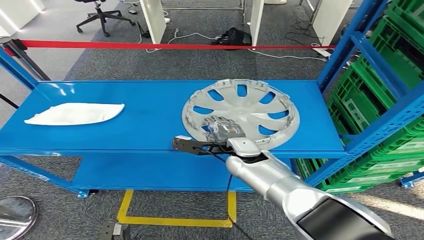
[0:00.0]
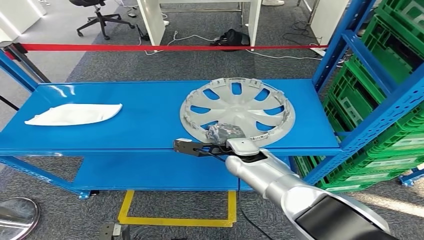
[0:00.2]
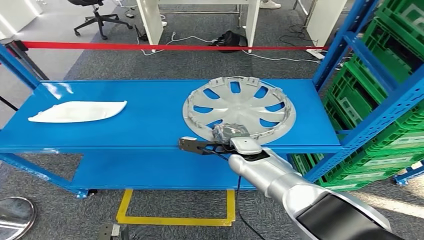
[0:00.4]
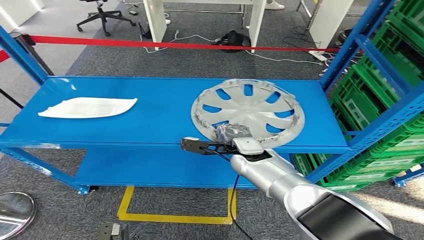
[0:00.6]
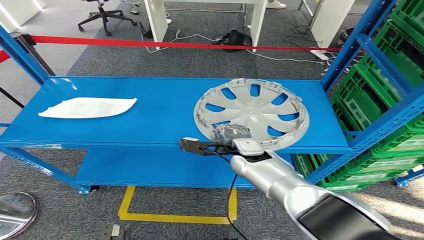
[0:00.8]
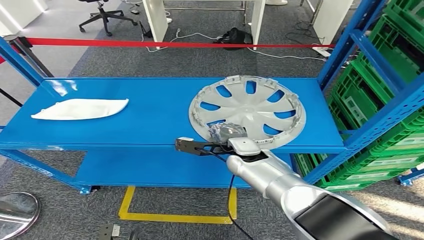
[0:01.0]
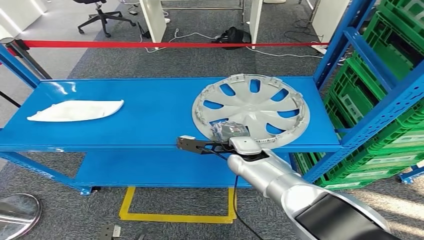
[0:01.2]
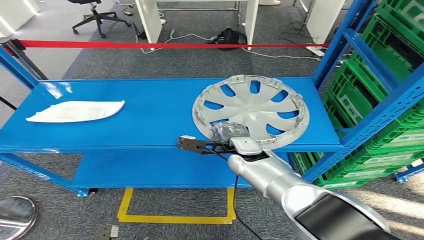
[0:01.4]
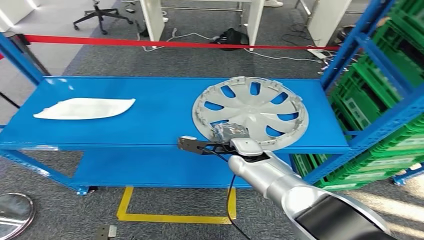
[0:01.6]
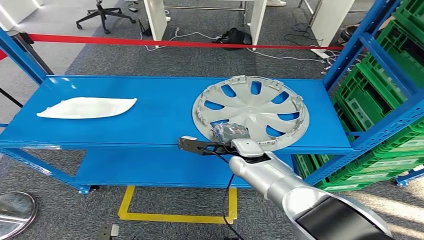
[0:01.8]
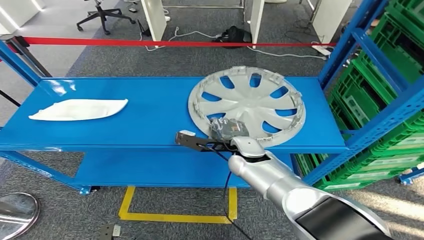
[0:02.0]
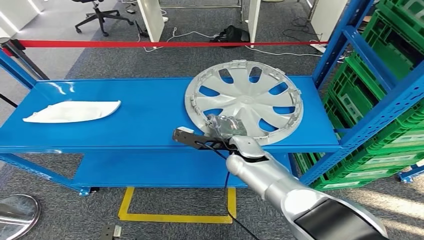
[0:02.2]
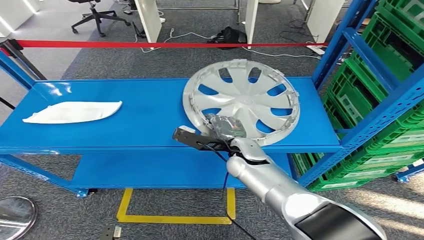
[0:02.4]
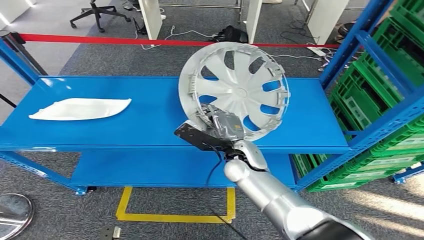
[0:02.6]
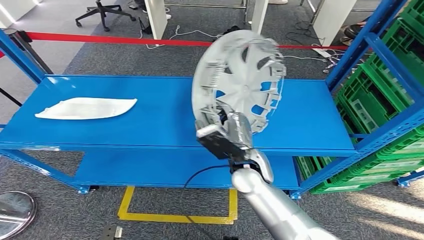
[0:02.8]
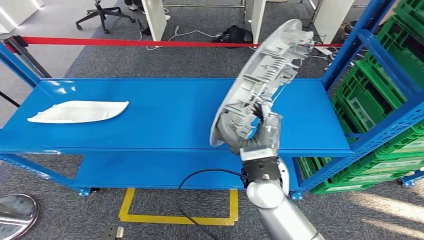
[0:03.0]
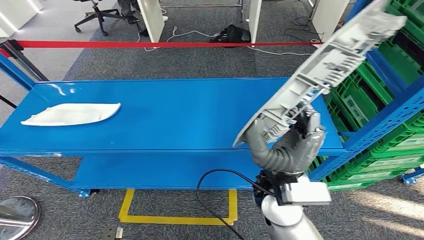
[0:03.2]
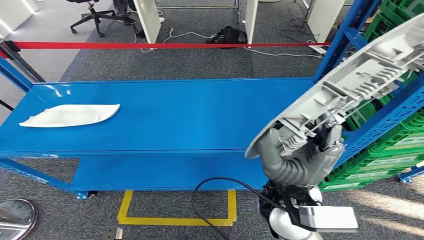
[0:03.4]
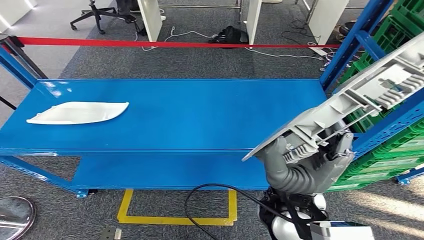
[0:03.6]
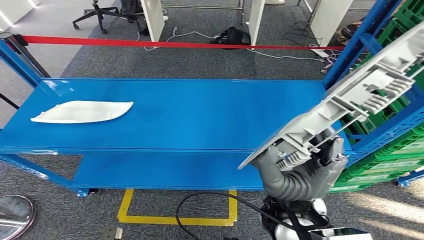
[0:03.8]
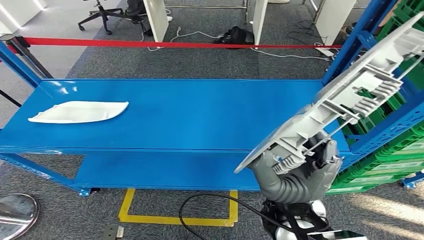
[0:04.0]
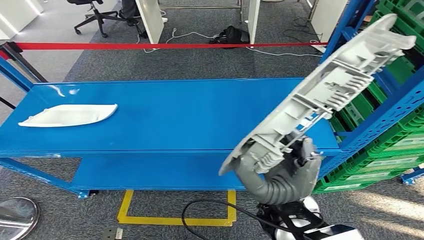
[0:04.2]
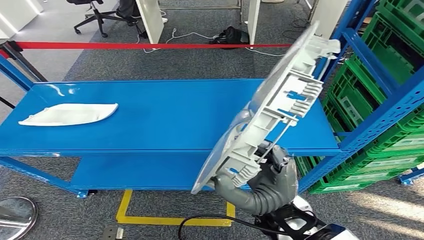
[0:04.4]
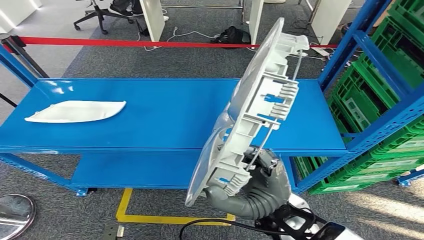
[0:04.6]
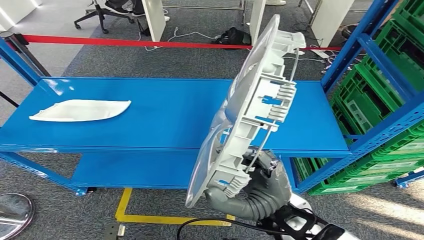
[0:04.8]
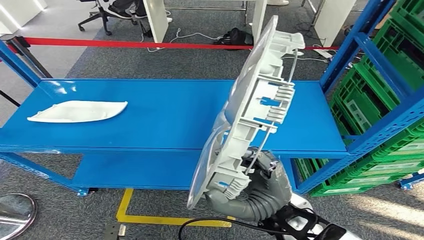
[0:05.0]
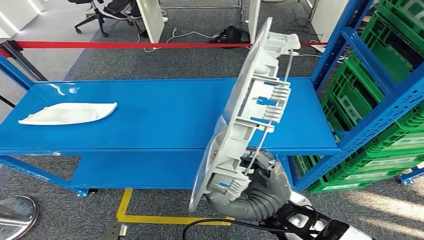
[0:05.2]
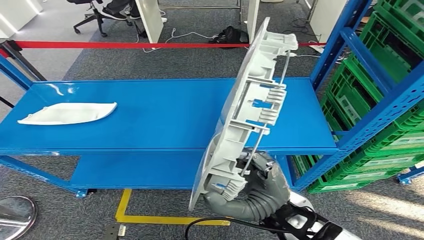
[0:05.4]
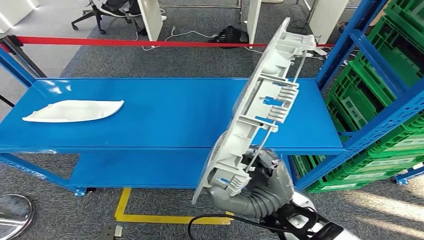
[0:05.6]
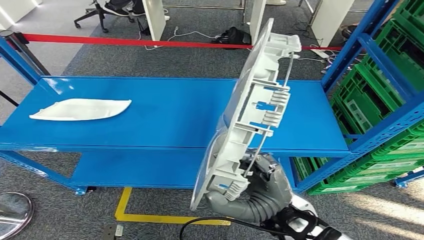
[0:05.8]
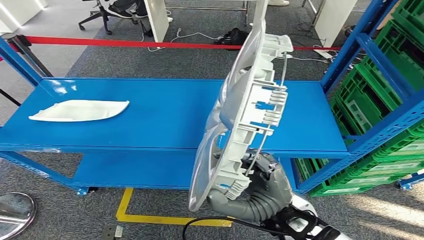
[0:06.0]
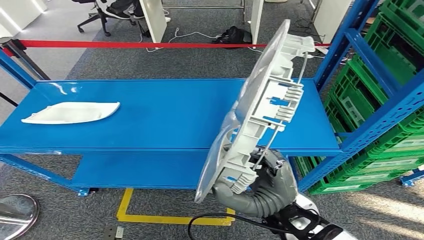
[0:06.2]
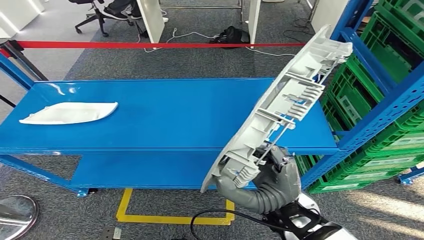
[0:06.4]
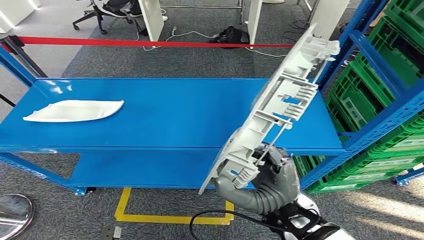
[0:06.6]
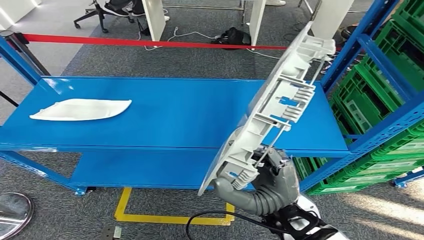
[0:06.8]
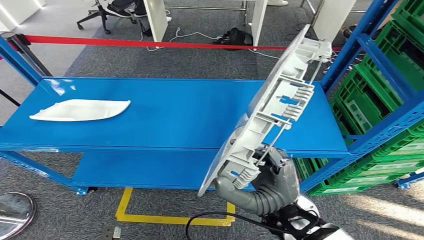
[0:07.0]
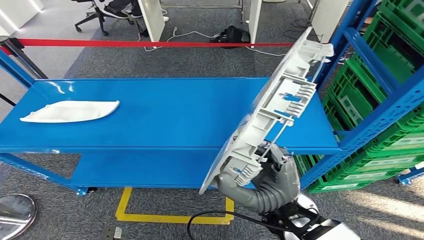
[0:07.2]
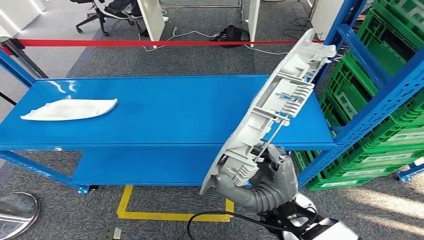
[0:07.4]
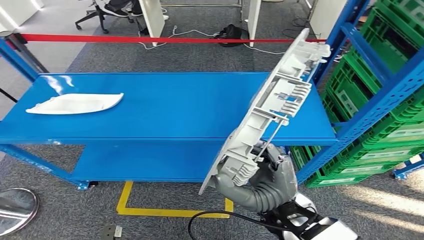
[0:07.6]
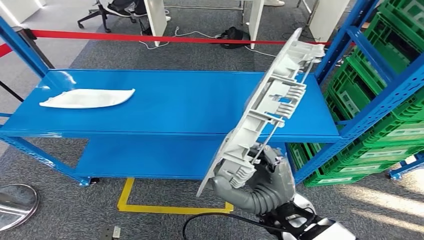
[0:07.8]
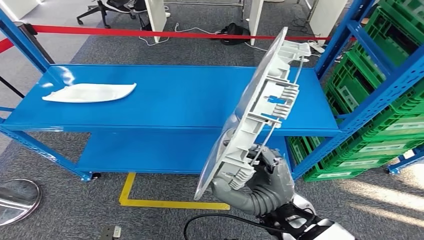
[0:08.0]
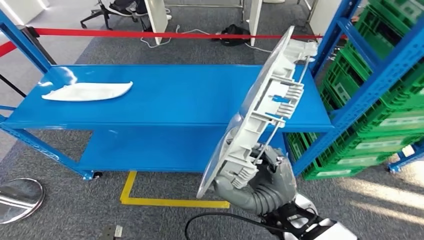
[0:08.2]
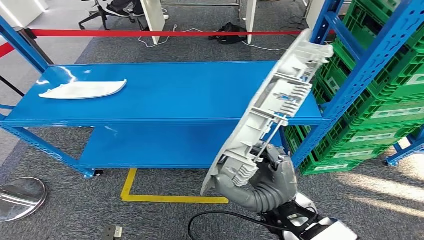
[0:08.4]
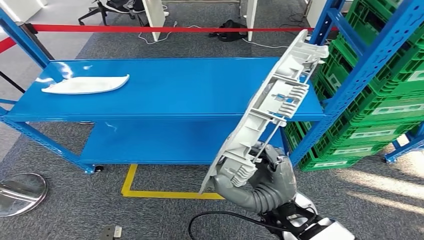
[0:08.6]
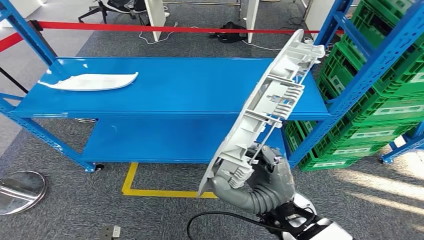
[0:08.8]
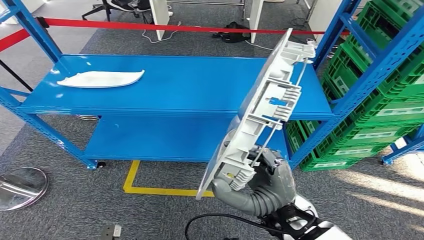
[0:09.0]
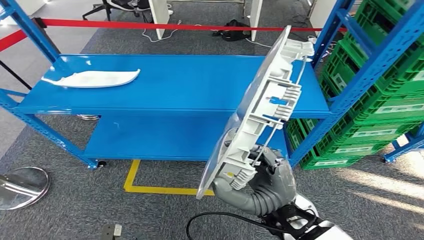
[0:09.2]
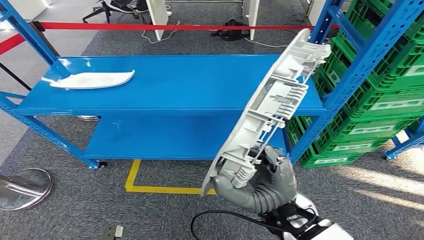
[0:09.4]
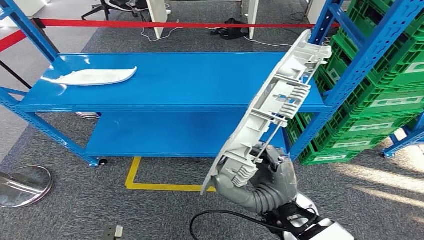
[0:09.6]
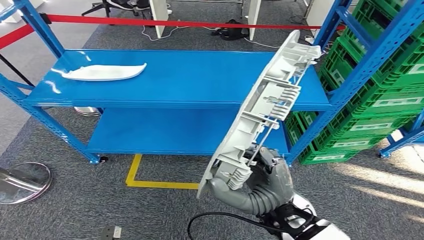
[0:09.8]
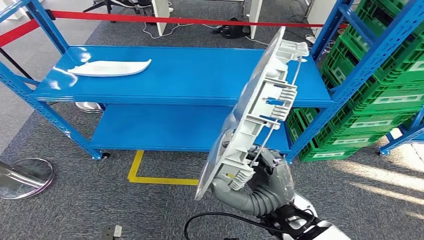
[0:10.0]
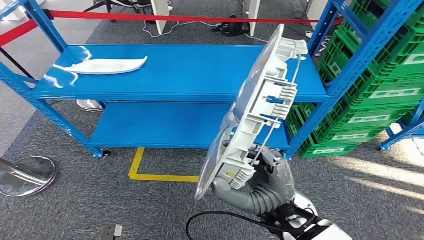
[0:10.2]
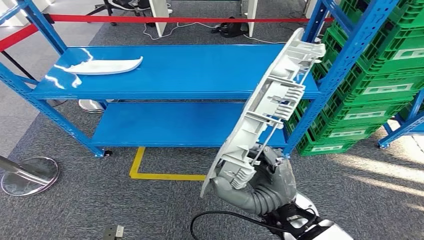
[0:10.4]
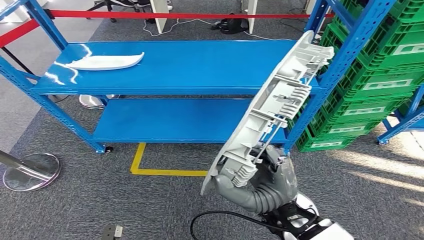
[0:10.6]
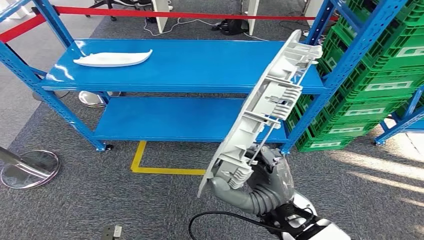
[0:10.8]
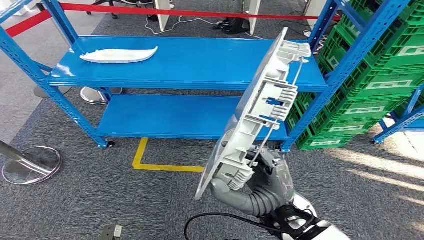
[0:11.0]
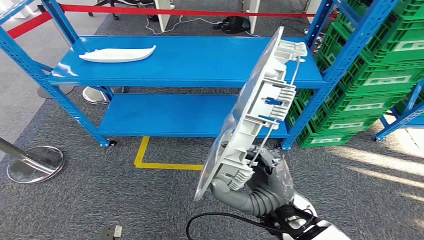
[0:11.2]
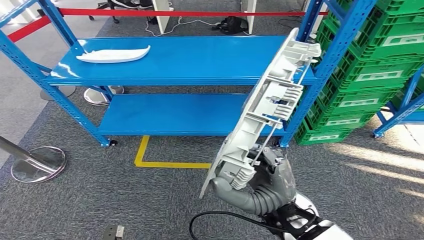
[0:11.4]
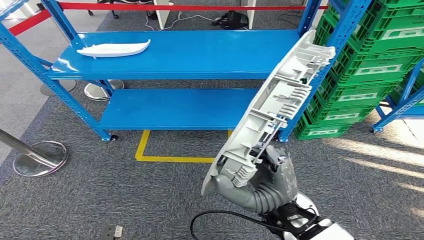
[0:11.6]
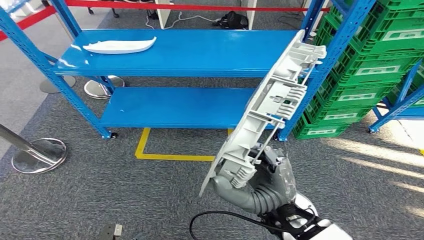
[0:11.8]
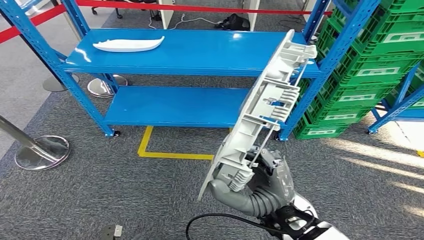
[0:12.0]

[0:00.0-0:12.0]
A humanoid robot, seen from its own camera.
Step, 0:00.0 to 0:02.0: Pick up the small component from the shelf.

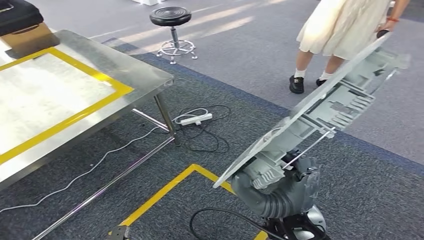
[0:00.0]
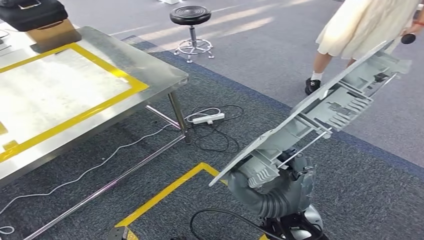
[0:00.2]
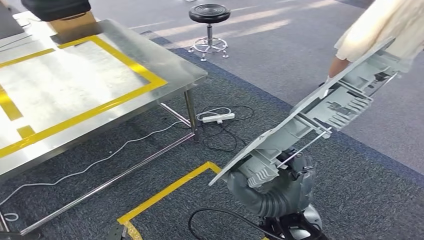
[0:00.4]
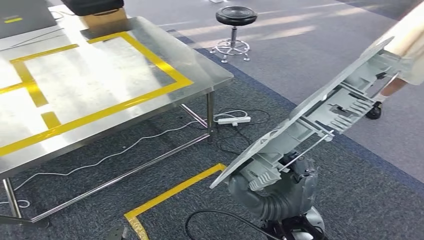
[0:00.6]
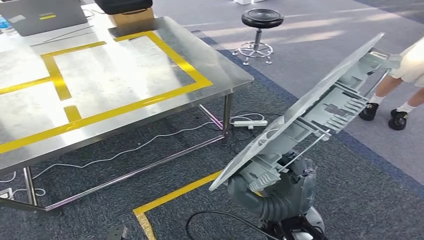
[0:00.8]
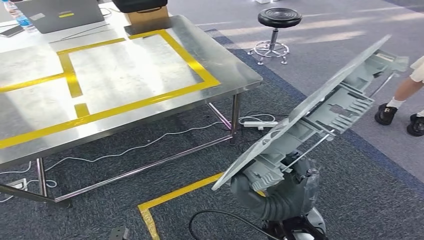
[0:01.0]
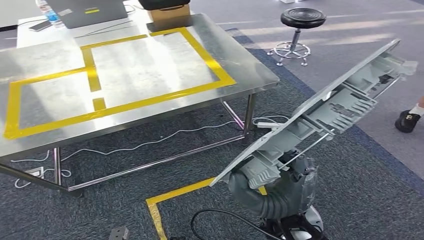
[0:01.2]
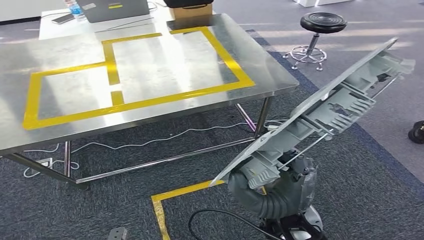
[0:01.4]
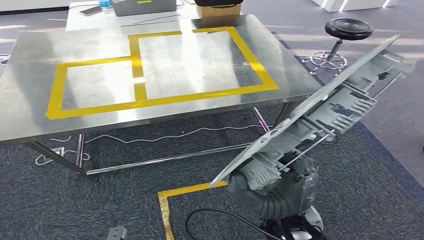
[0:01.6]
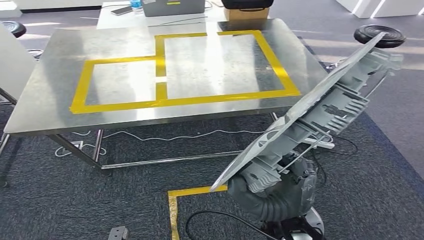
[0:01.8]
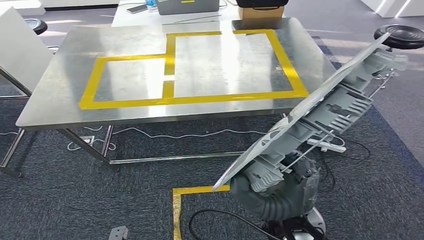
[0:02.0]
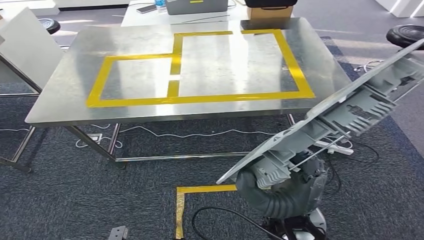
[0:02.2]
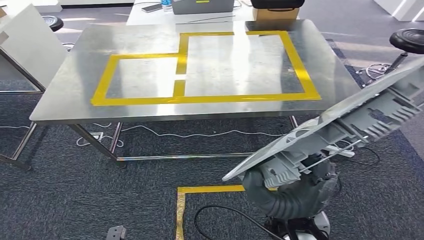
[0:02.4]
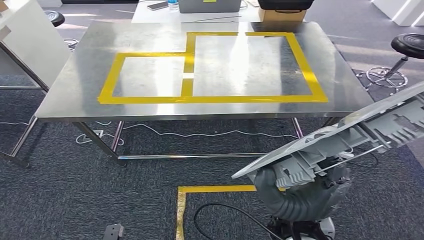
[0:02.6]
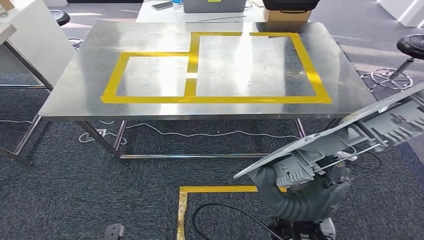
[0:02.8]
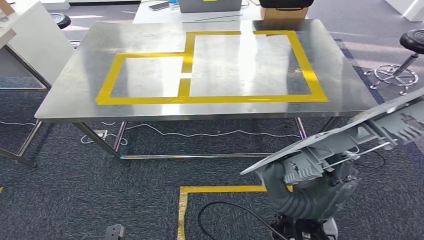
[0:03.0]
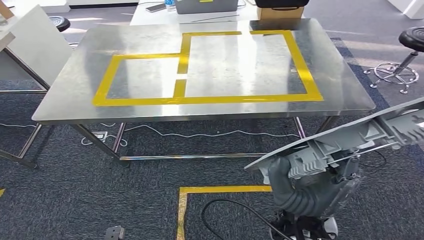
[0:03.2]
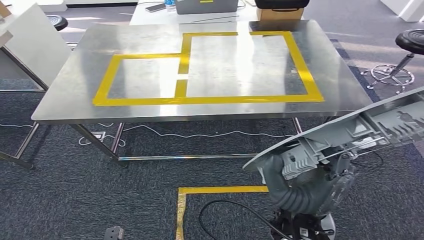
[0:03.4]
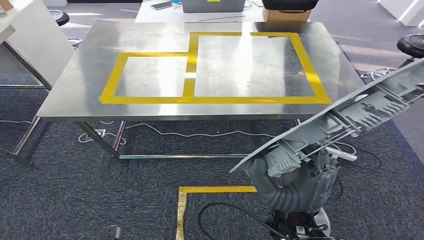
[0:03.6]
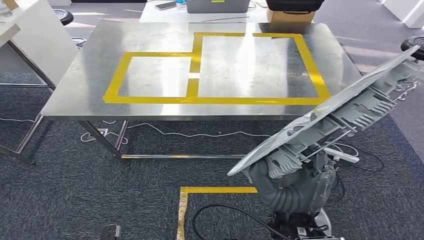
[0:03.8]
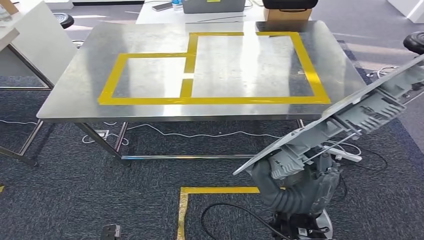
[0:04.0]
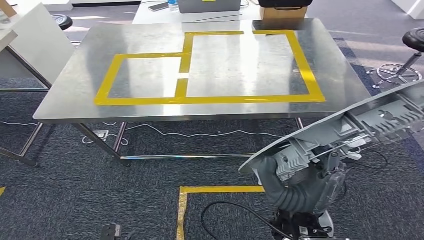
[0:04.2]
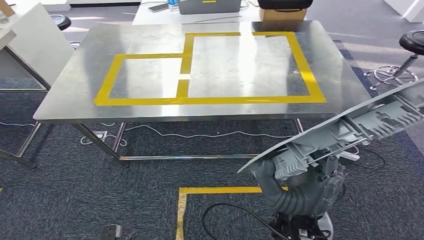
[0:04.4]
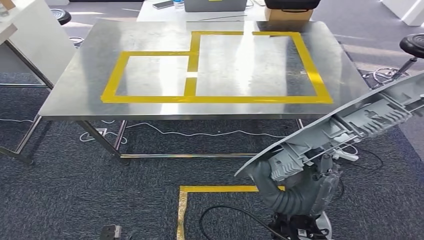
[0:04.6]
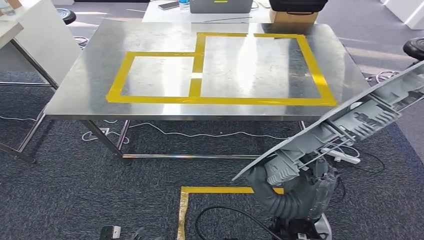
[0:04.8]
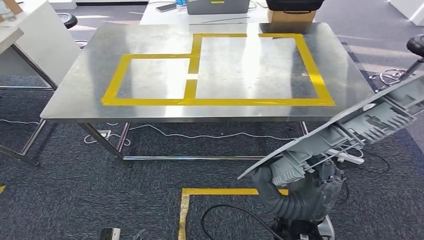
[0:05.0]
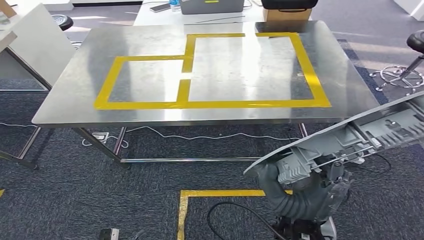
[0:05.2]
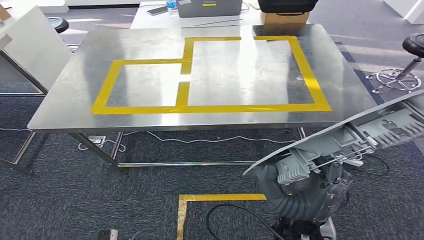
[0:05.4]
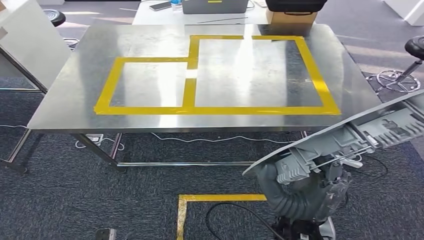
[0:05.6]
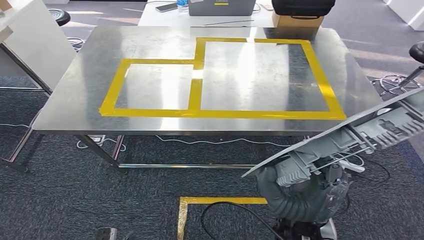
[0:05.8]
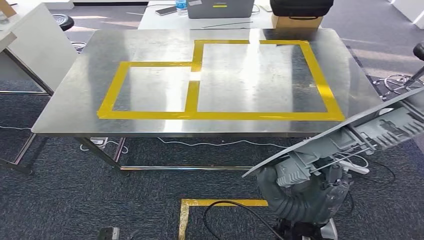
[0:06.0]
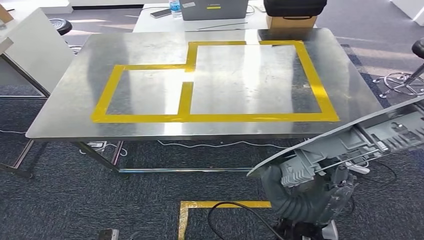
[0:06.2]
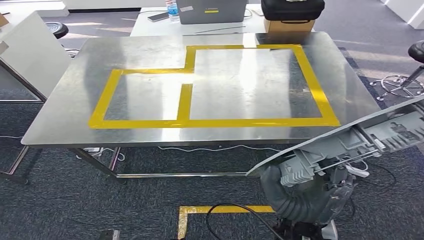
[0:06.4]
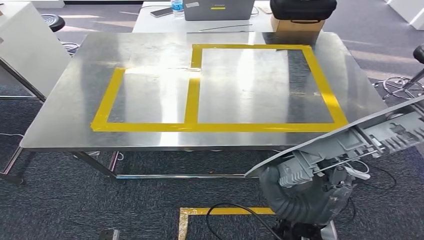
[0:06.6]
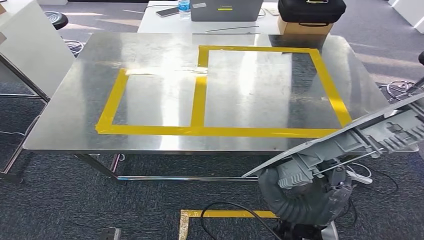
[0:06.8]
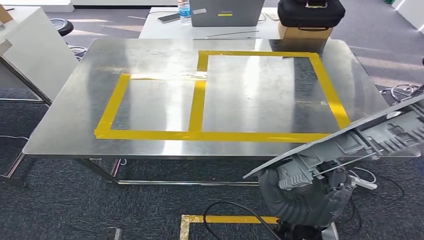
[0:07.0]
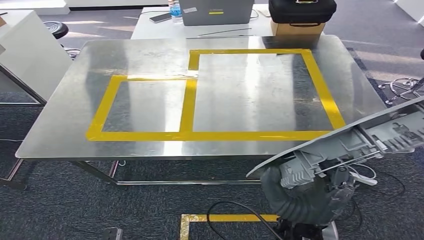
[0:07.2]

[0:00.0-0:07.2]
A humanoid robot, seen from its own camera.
Step, 0:00.0 to 0:04.8: Bring the small component to the front of the workbench.
